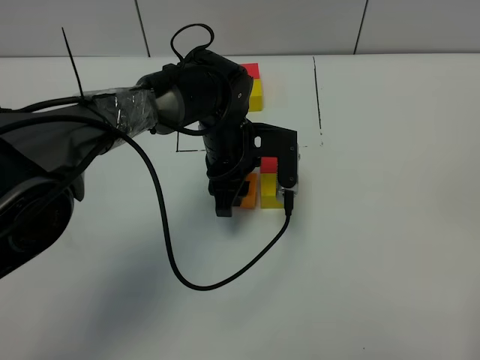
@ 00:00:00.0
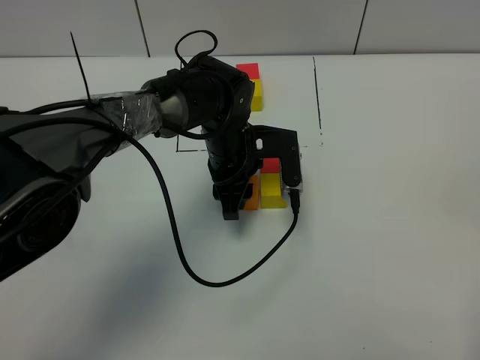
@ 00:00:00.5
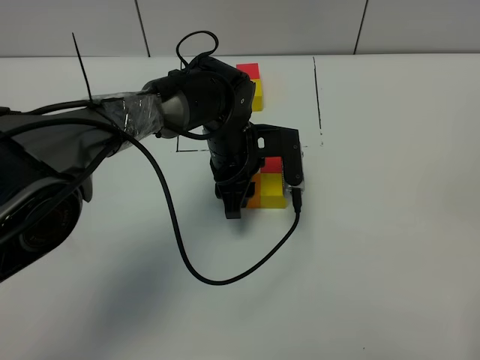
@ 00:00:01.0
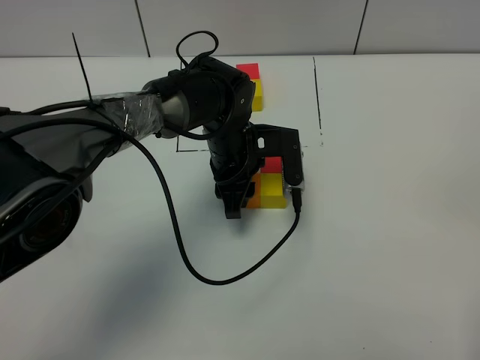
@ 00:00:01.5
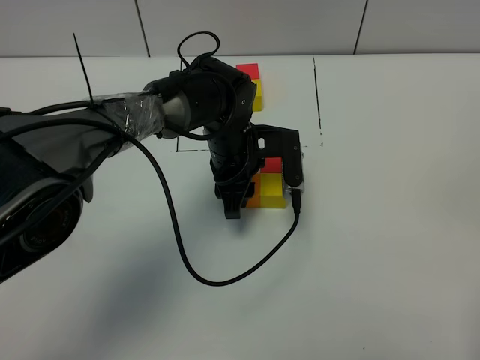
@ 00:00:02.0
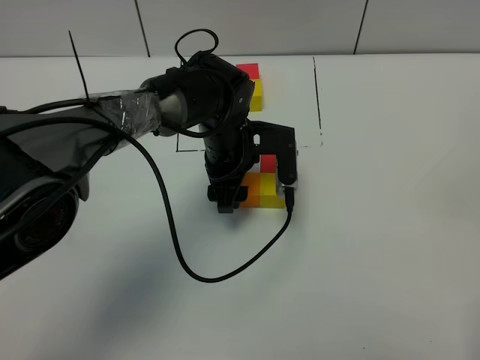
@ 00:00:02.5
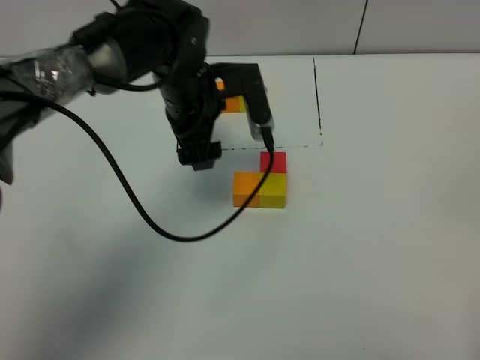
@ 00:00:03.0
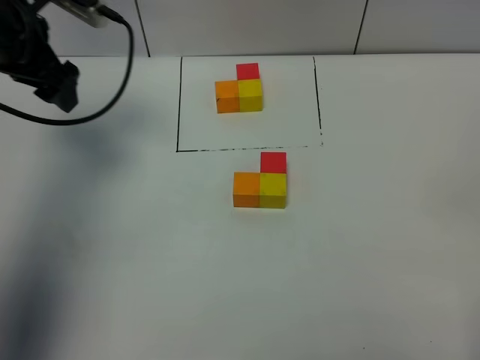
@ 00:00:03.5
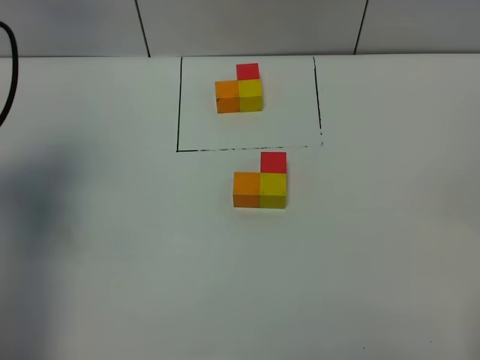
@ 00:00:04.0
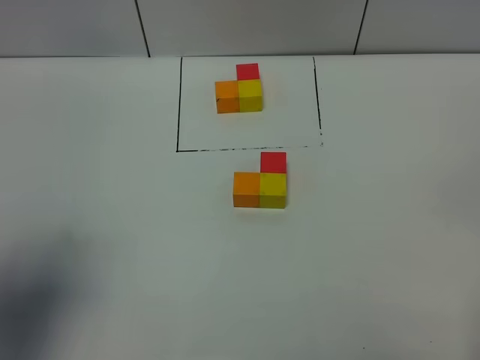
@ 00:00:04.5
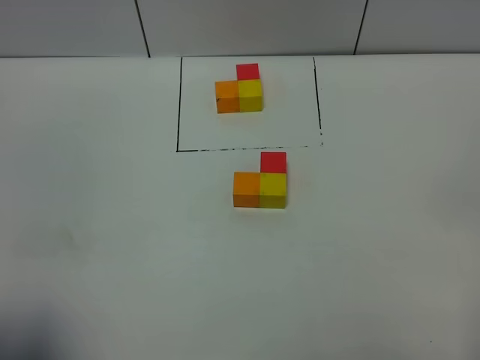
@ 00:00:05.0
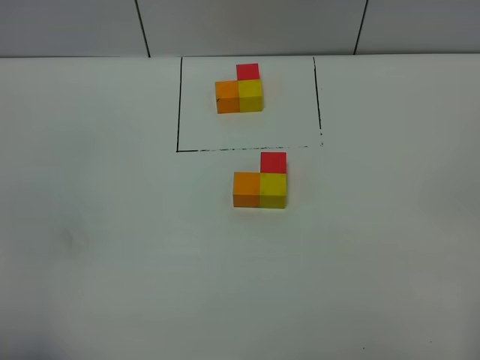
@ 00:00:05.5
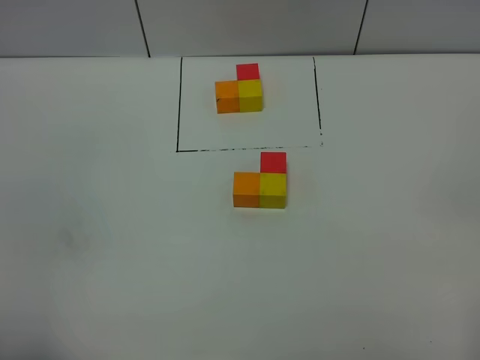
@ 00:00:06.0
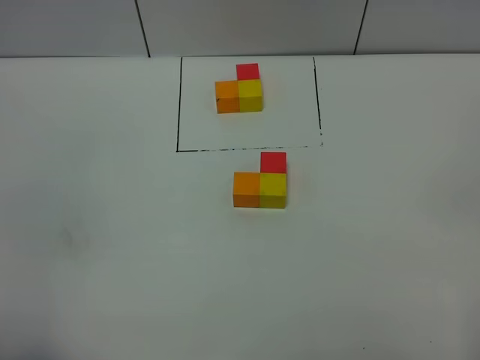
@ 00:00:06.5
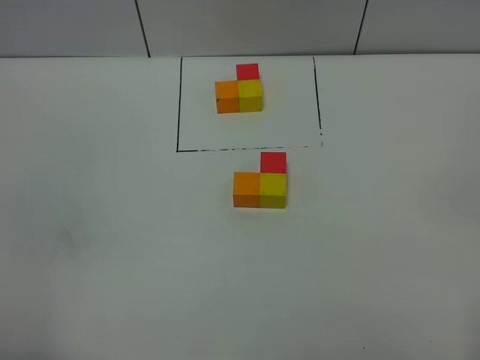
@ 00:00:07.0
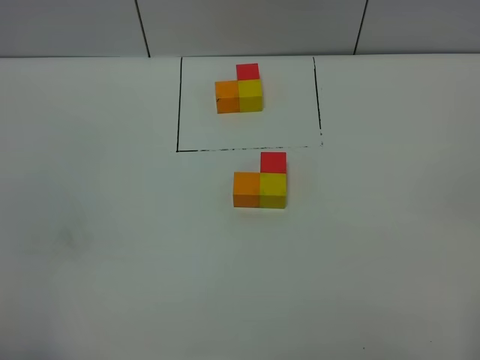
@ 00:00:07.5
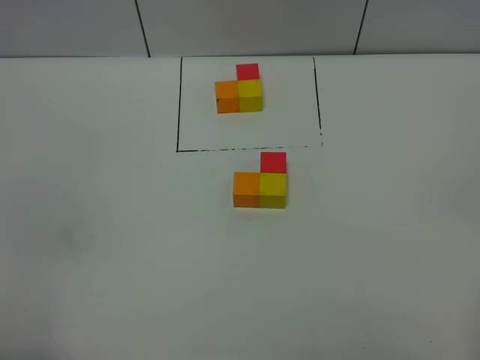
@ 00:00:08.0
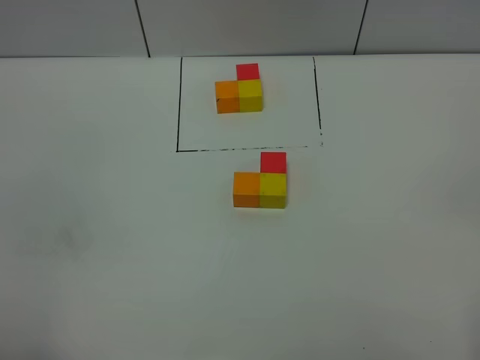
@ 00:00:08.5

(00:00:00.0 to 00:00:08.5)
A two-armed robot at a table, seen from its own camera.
Task of the whole recording: According to the building block template in front, assemble the scattered blocks together.
Step, 00:00:00.0 - 00:00:02.5: Put the orange build block on the left of the yellow build block.
00:00:00.0 - 00:00:02.0: Both grippers stay about where they are.
00:00:02.0 - 00:00:04.0: The left gripper is displaced to the left and upward by some 40 cm, and opens its fingers.
00:00:04.0 - 00:00:06.5: The left gripper goes roughly 30 cm backward.
00:00:06.5 - 00:00:08.5: Both grippers stay put.
